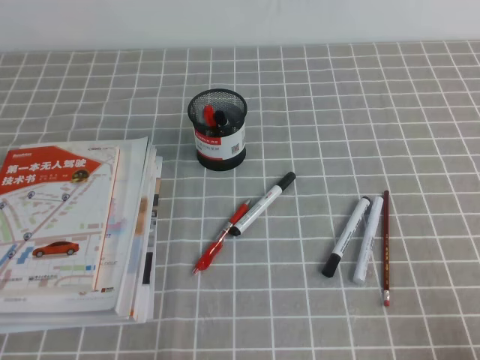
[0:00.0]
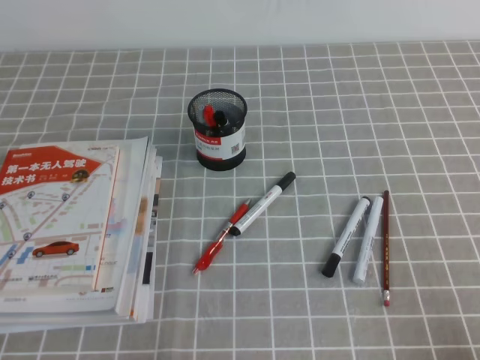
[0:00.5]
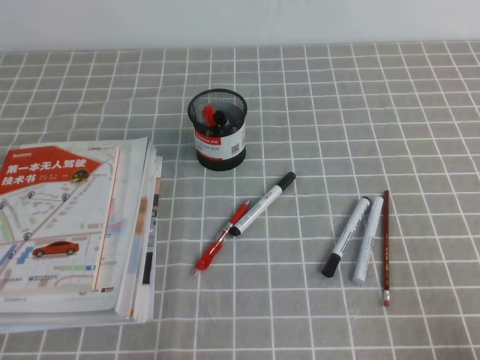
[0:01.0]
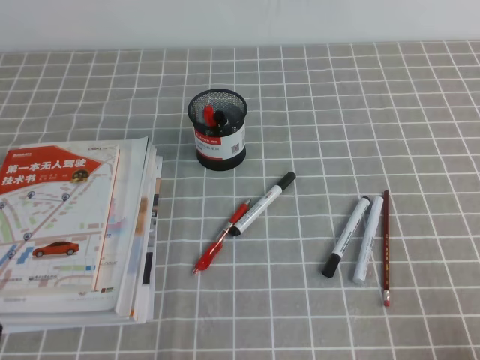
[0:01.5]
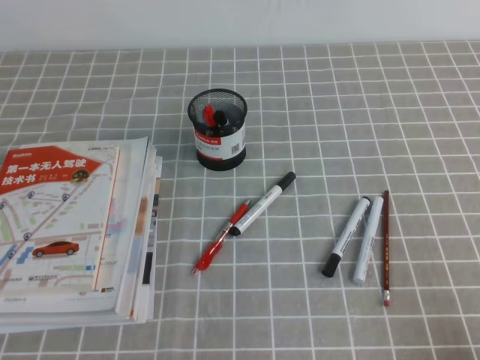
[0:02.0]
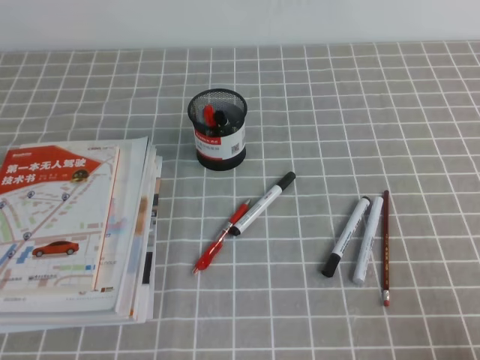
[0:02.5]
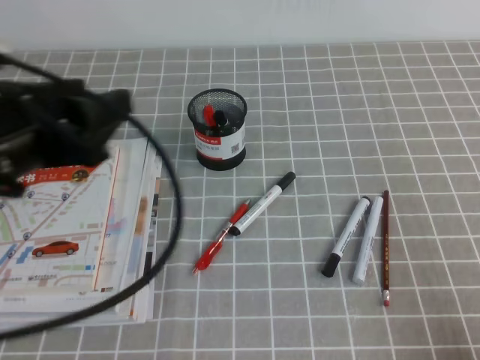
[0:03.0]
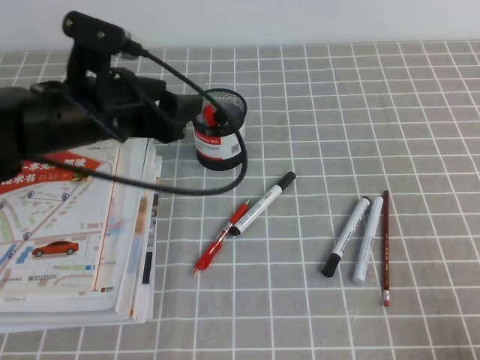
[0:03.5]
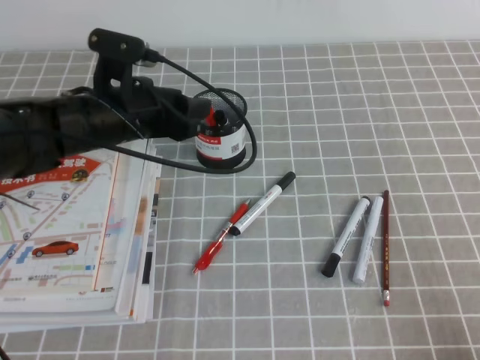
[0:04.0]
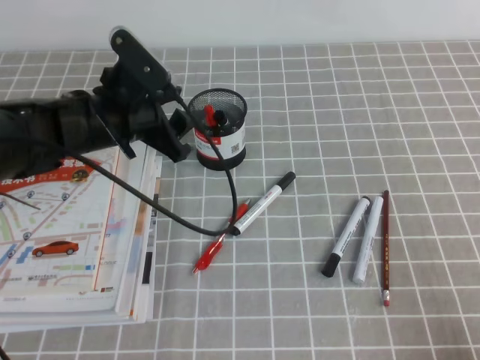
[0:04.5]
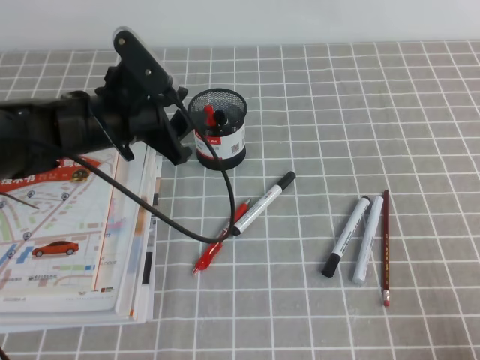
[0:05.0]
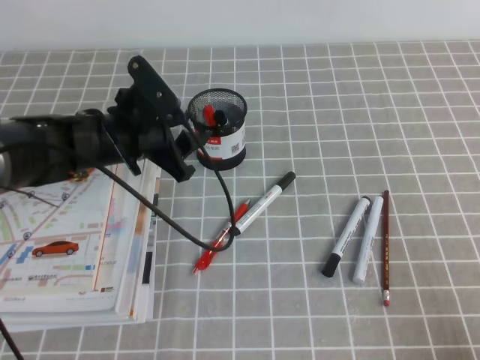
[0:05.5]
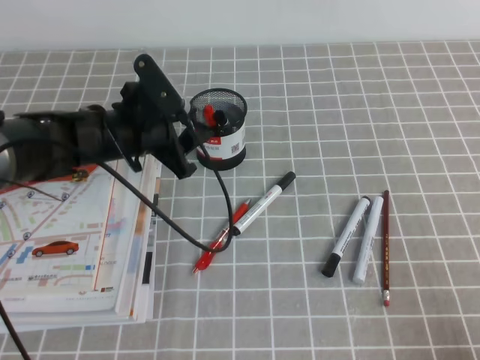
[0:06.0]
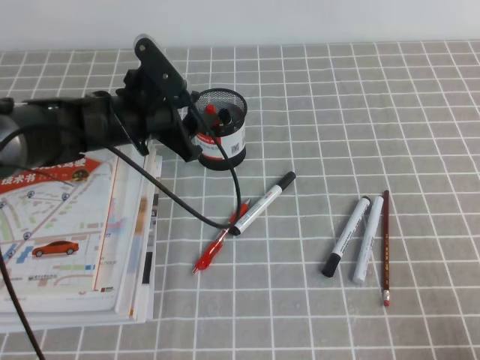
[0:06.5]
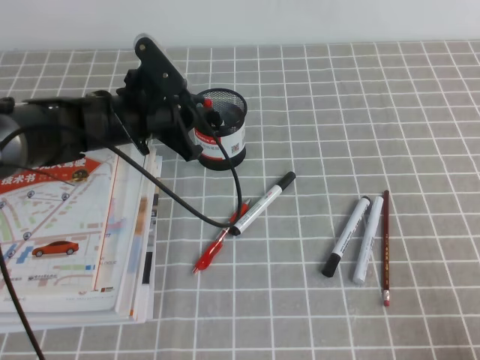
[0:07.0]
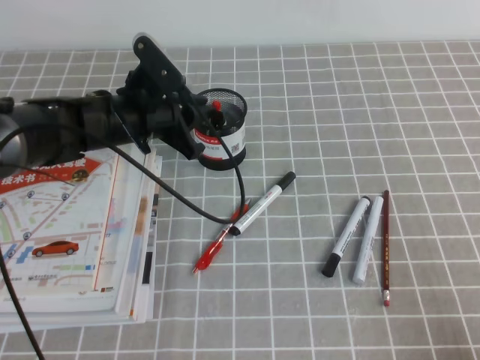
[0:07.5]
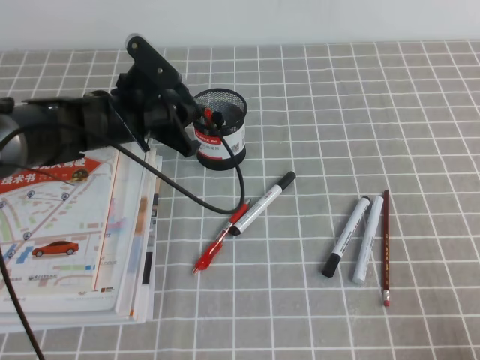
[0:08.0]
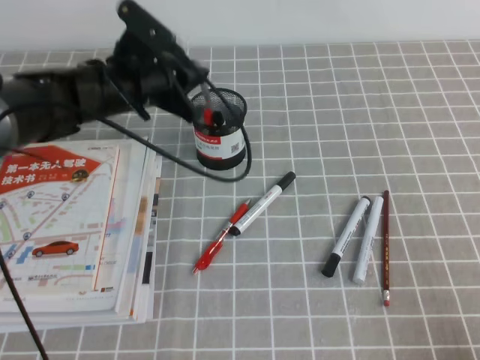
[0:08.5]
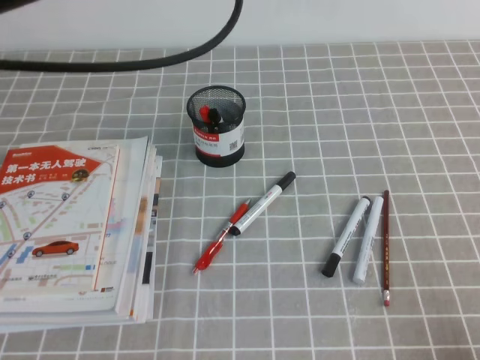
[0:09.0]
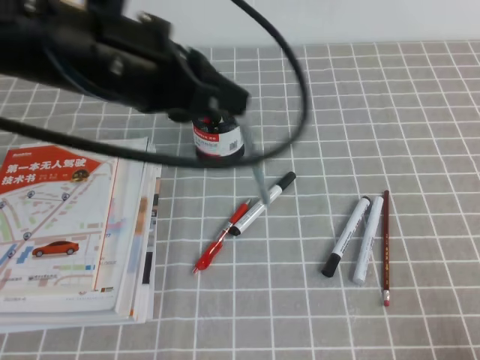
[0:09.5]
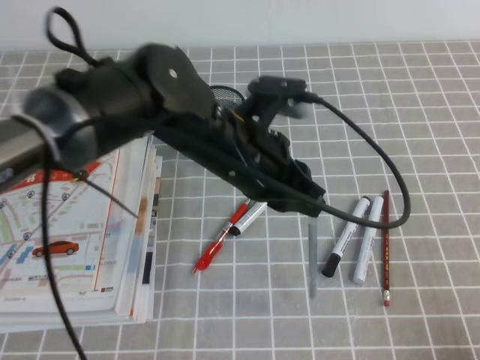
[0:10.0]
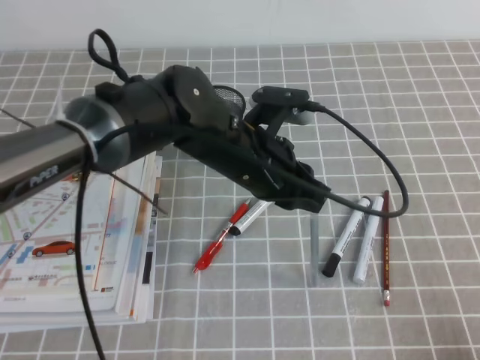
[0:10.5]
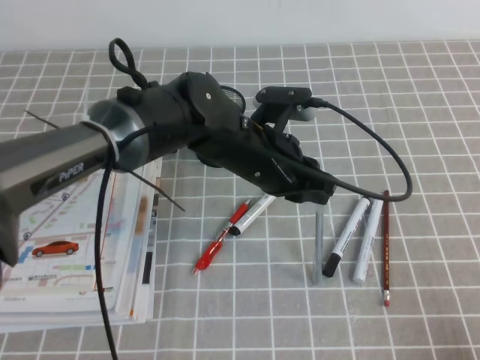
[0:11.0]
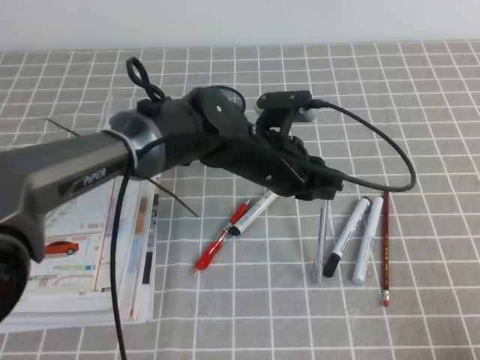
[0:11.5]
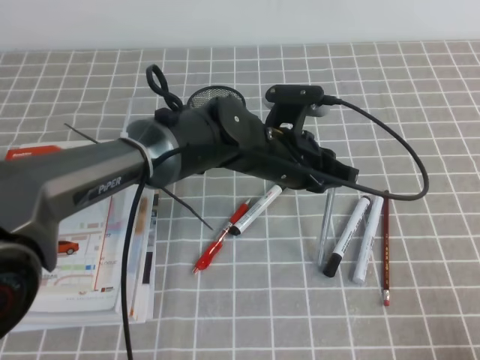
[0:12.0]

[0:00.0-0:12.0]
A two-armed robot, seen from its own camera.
0:02.0 to 0:04.0: The left gripper moves forward and to the right, about 35 cm, and opens up.
0:06.0 to 0:08.0: The left gripper closes.
0:08.0 to 0:10.0: The left gripper goes some 15 cm backward and to the right, and reaches roughly 20 cm upward, then returns.
0:10.0 to 0:12.0: The left gripper travels downward, to the right and forward by some 10 cm.

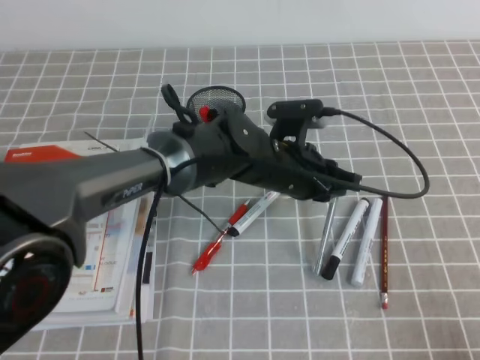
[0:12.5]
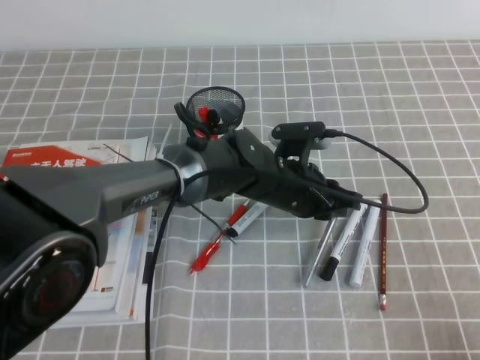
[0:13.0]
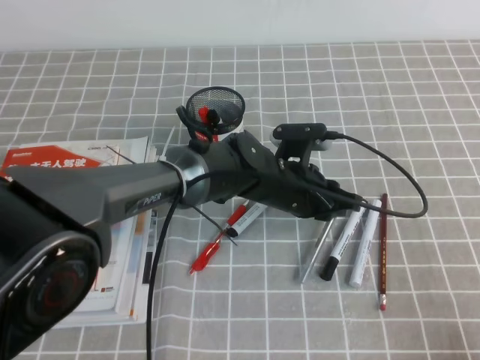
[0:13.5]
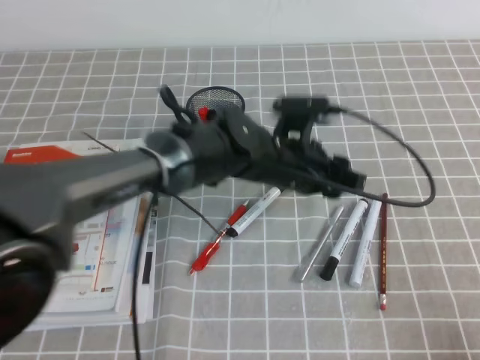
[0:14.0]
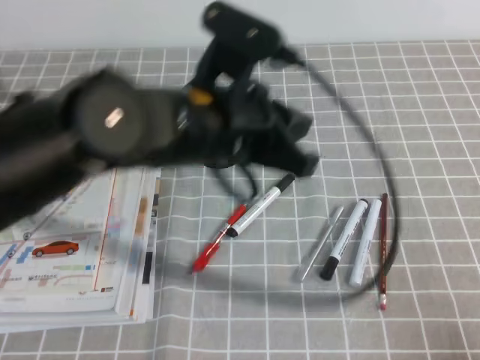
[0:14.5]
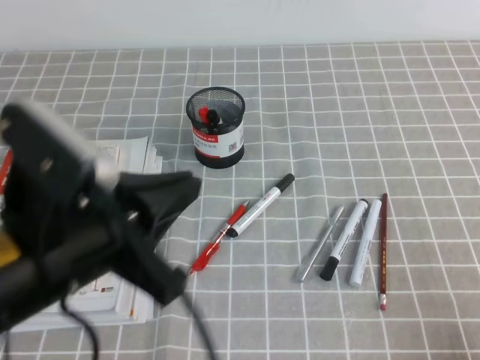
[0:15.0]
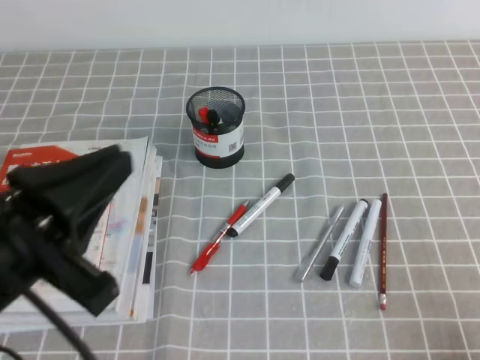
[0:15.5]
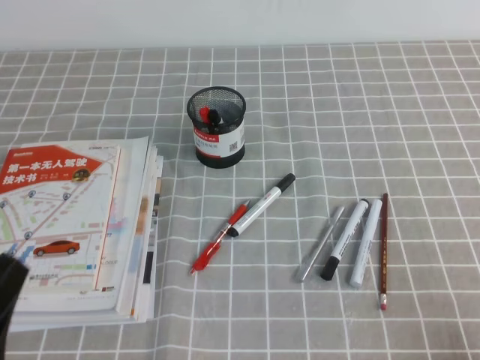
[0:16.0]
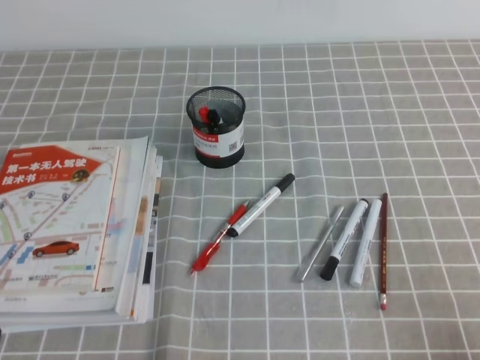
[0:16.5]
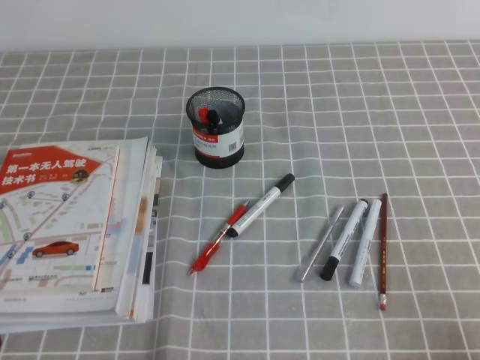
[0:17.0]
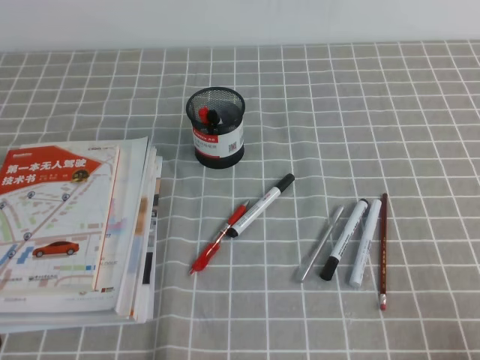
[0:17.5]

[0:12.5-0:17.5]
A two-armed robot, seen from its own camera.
Step, 0:12.5 to 0:17.5: Pick up the pen from the pen holder.
0:12.5 to 0:15.0: The left gripper moves backward, to the left and upward, roughly 30 cm, and opens, then closes once more.
0:15.0 to 0:17.5: The left gripper shifts about 25 cm downward, to the left and backward.

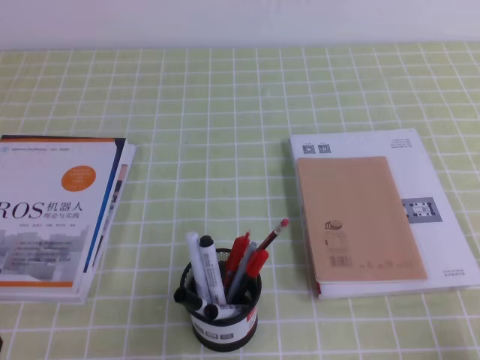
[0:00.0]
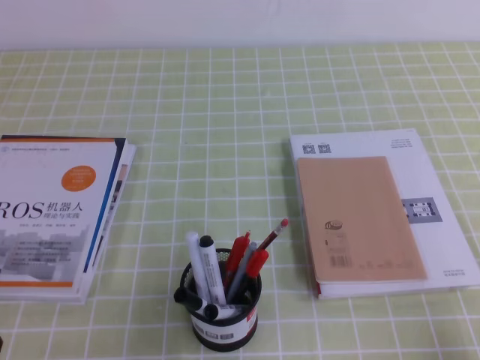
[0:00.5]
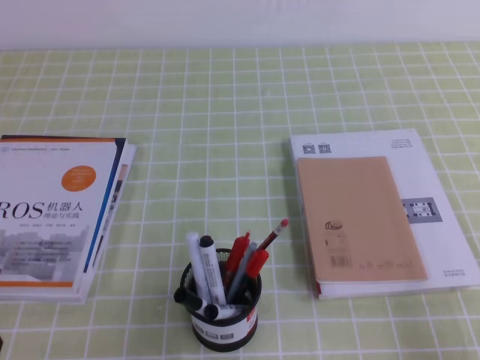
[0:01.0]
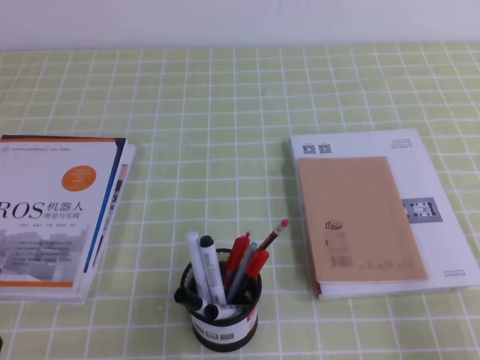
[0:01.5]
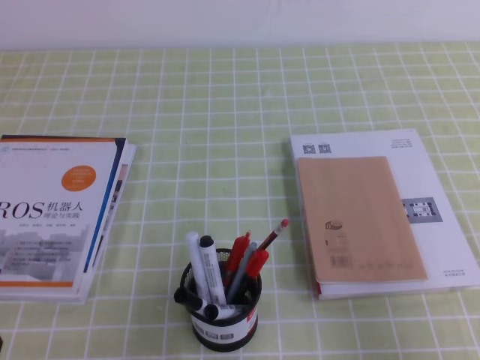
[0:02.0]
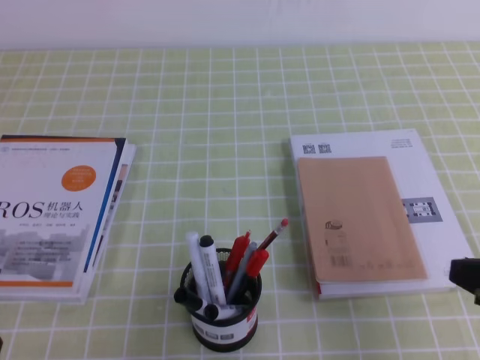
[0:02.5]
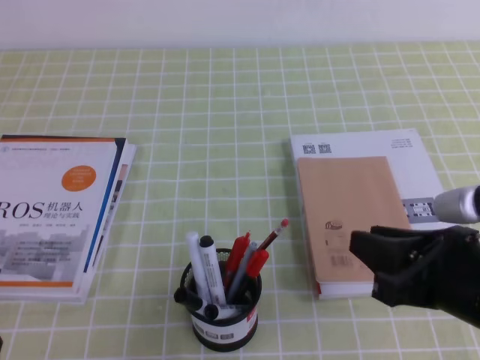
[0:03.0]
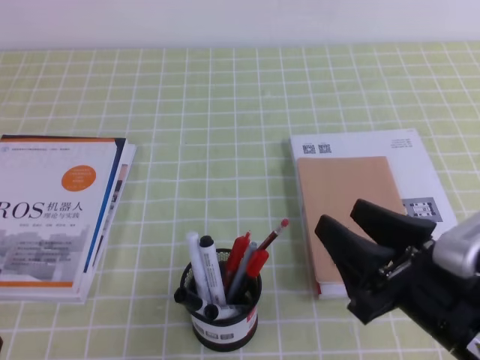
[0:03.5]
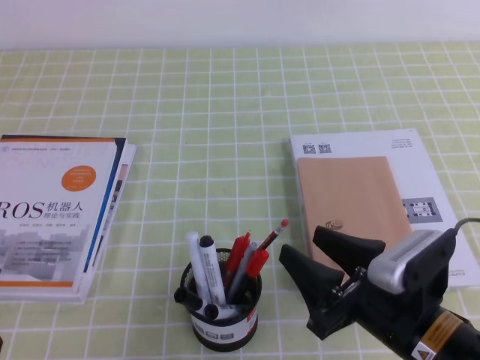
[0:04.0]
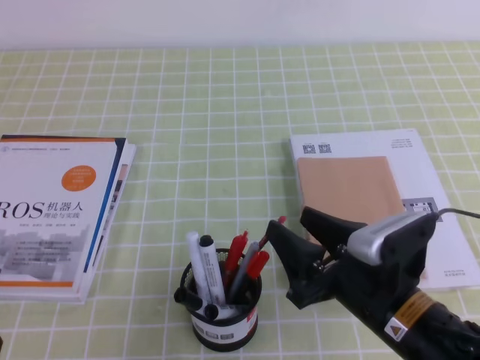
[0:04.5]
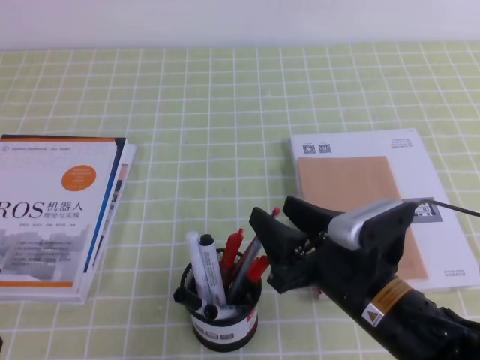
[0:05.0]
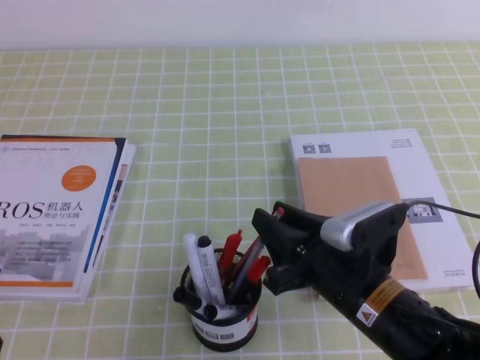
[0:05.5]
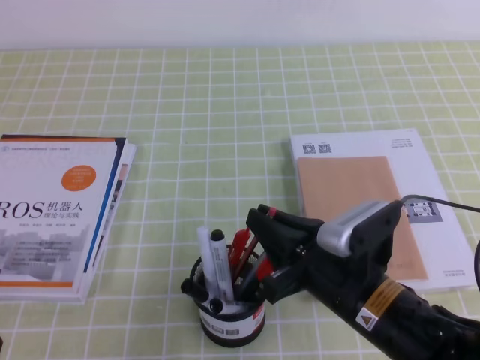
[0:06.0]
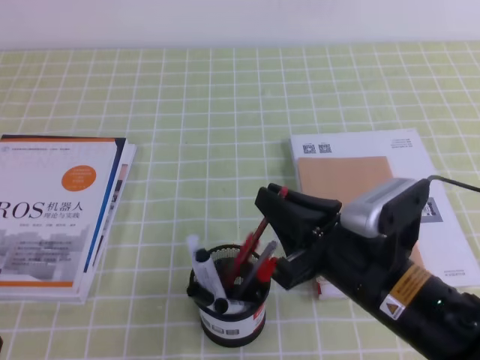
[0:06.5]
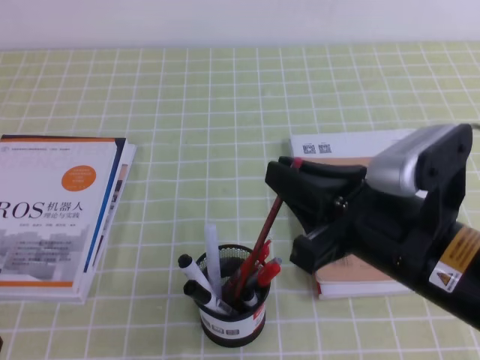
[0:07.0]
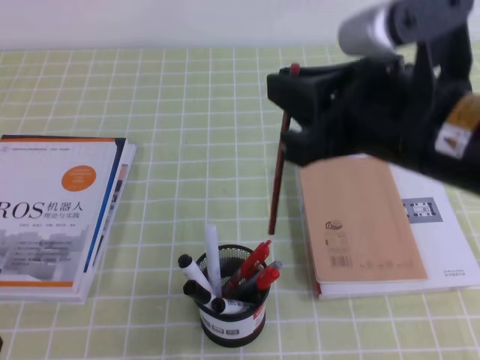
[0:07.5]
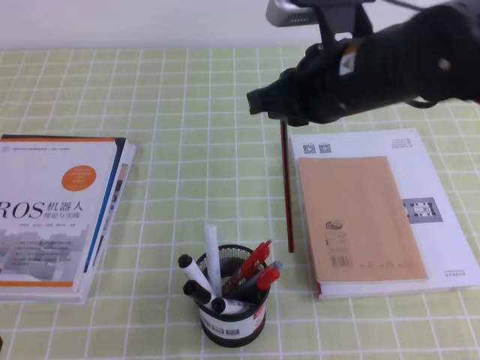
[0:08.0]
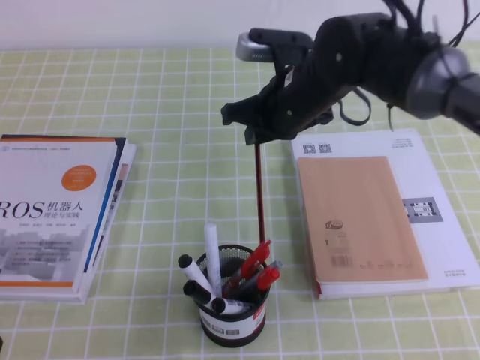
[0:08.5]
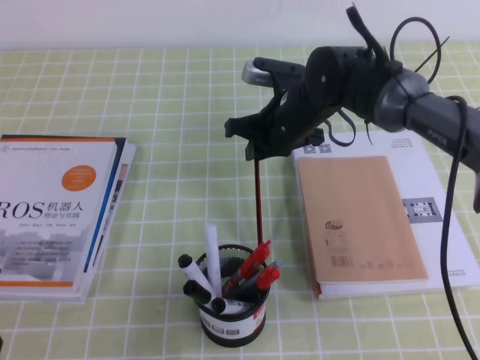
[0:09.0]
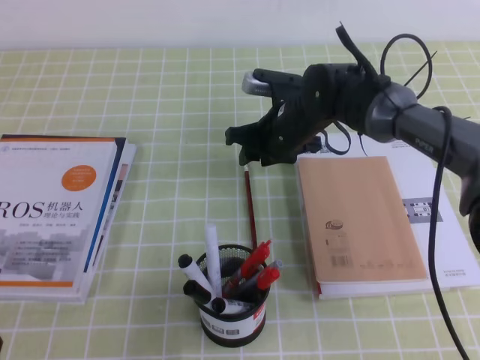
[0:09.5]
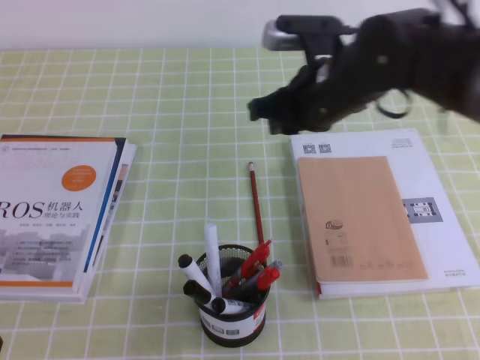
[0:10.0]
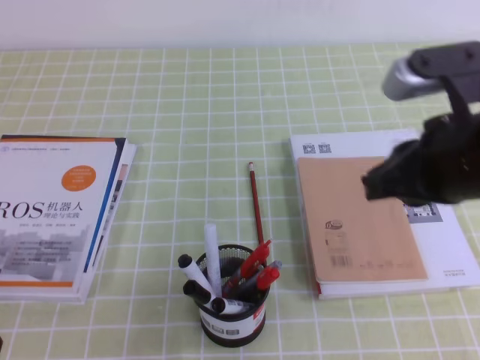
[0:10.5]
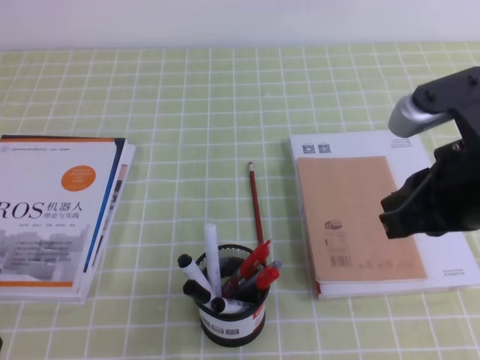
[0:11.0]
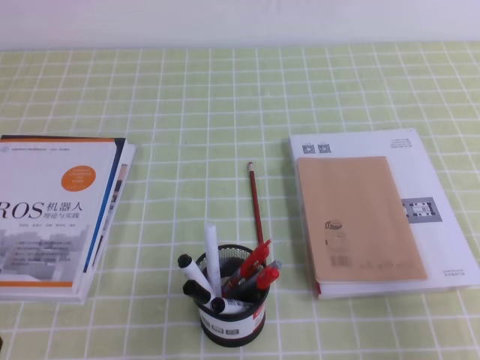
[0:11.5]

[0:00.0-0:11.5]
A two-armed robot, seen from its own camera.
0:00.0 to 0:02.0: The right gripper heads upward, covering approximately 5 cm.
0:02.0 to 0:04.0: The right gripper moves to the left and forward, about 15 cm, and opens.
0:04.0 to 0:06.0: The right gripper ends up approximately 5 cm from where it was, and closes its fingers.
0:06.0 to 0:07.5: The right gripper travels upward by approximately 20 cm.
0:07.5 to 0:09.5: The right gripper travels forward and downward by roughly 30 cm, and opens up.
0:09.5 to 0:11.5: The right gripper travels backward and to the right by some 40 cm, and closes its fingers.
